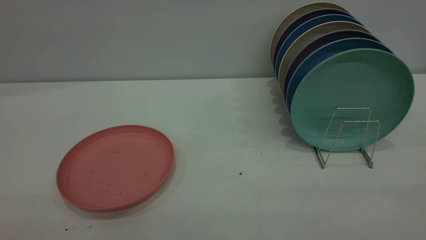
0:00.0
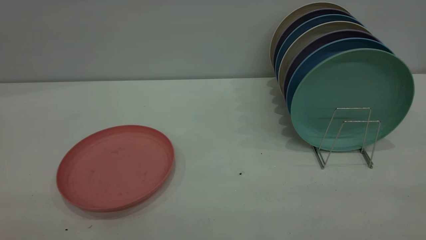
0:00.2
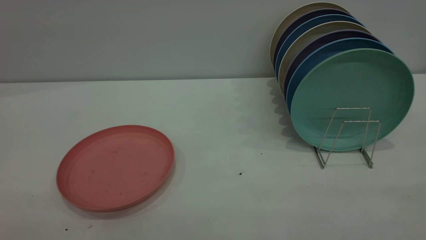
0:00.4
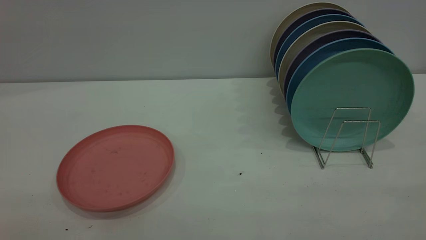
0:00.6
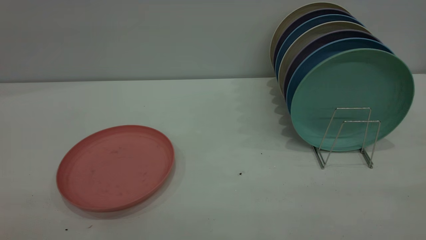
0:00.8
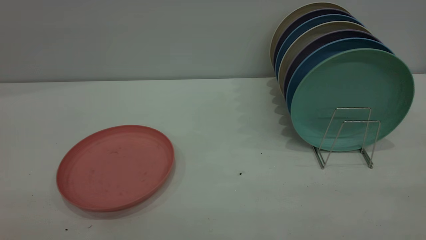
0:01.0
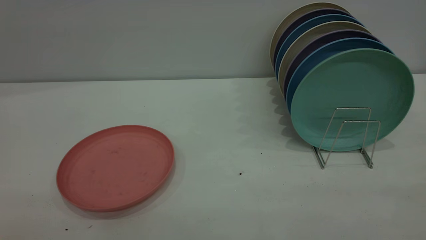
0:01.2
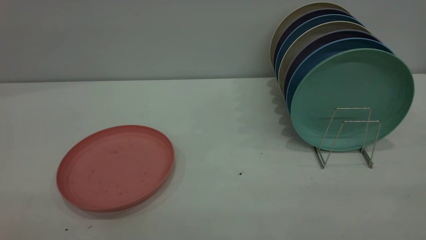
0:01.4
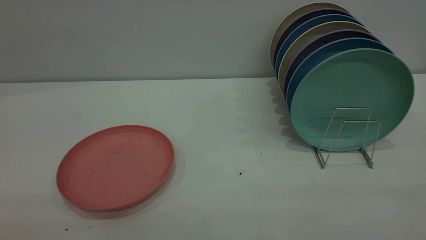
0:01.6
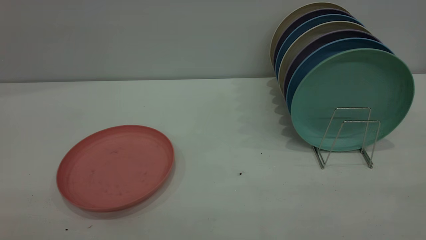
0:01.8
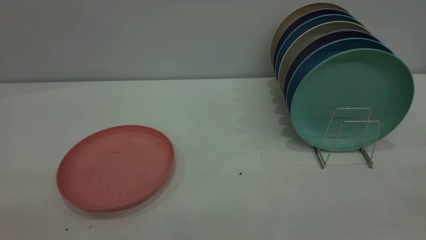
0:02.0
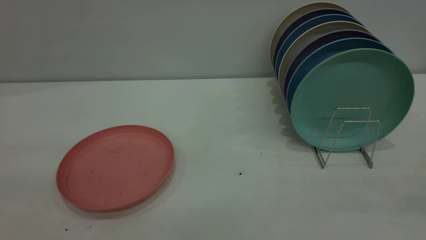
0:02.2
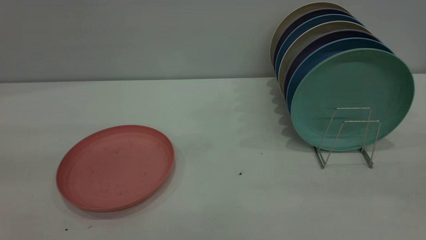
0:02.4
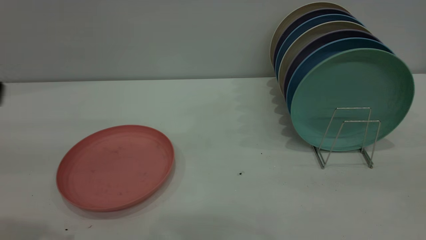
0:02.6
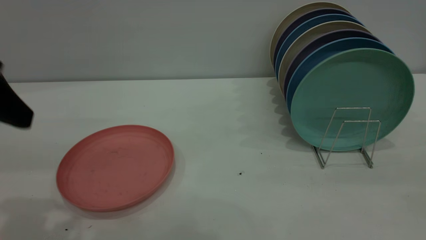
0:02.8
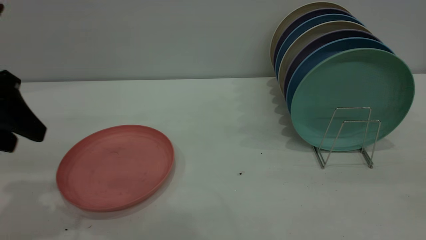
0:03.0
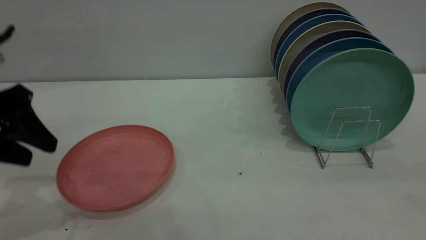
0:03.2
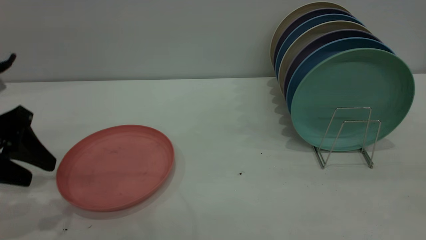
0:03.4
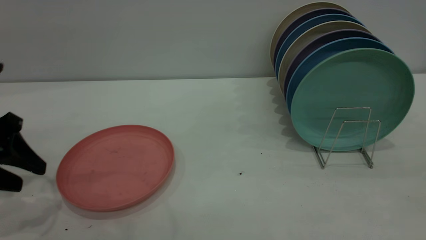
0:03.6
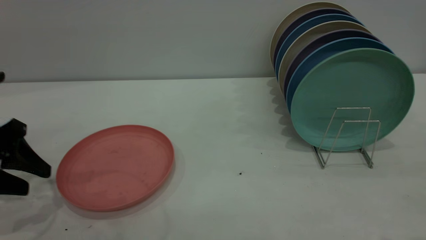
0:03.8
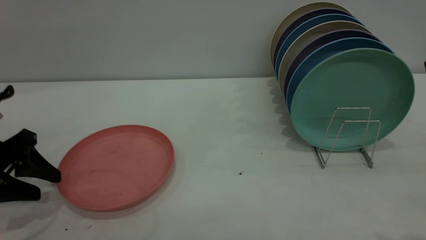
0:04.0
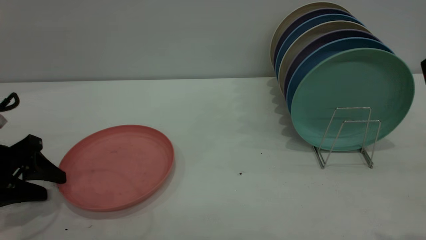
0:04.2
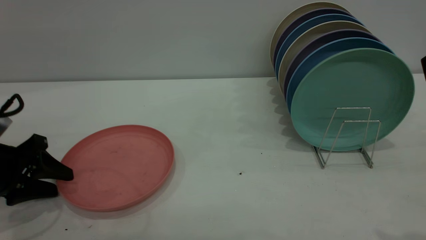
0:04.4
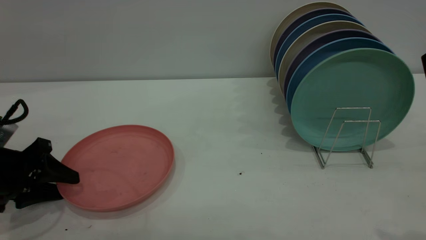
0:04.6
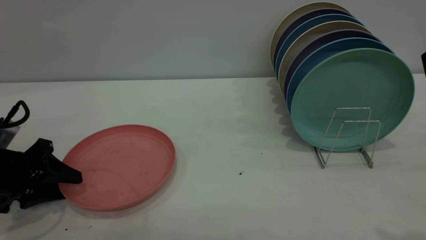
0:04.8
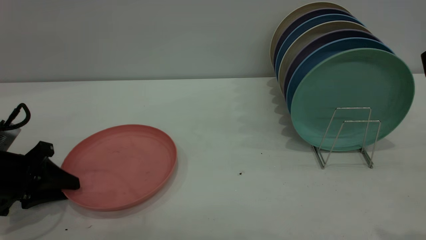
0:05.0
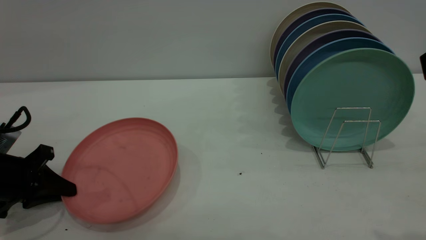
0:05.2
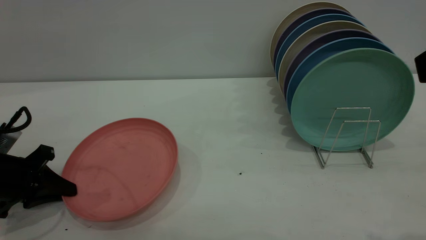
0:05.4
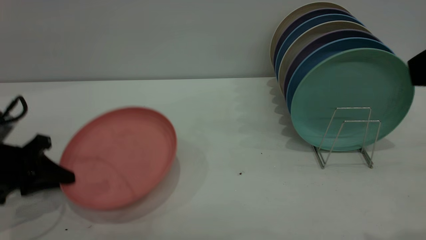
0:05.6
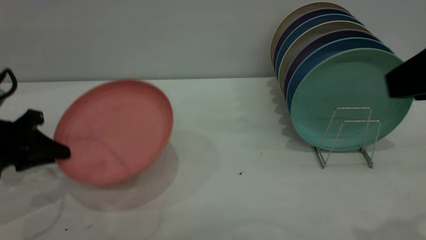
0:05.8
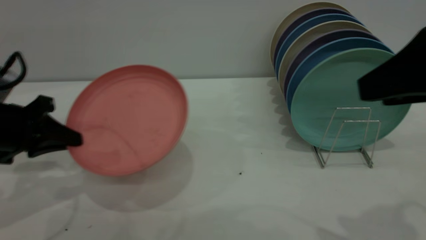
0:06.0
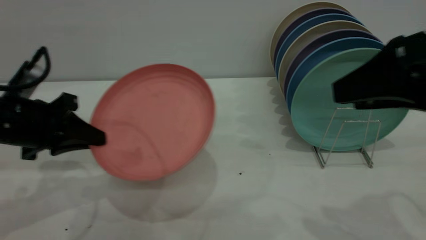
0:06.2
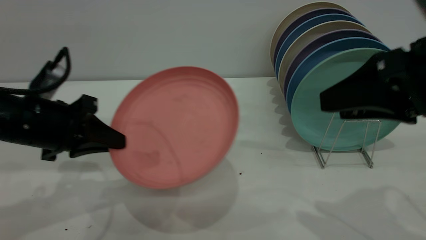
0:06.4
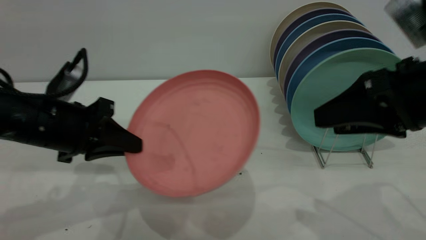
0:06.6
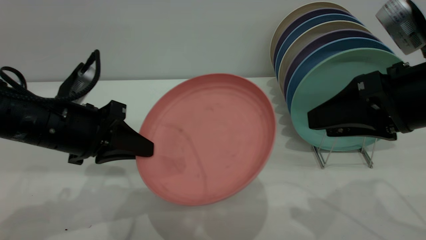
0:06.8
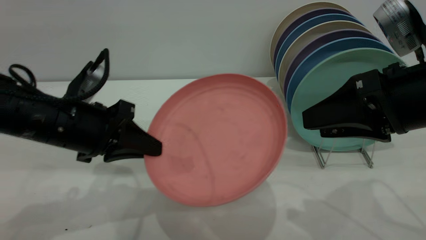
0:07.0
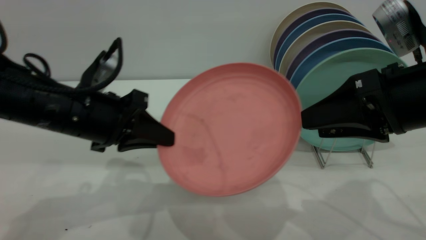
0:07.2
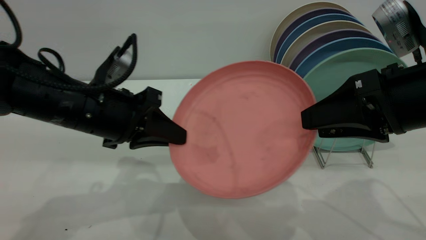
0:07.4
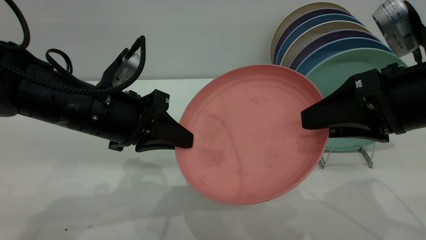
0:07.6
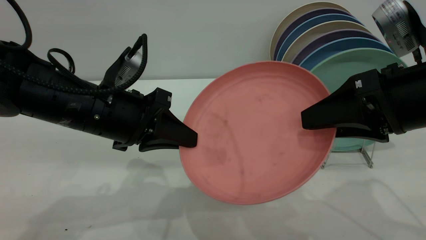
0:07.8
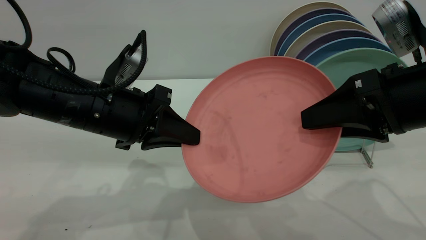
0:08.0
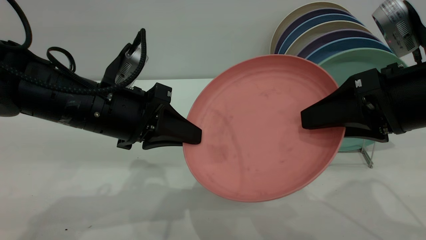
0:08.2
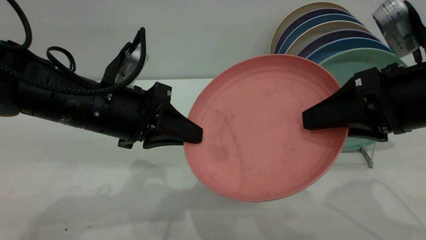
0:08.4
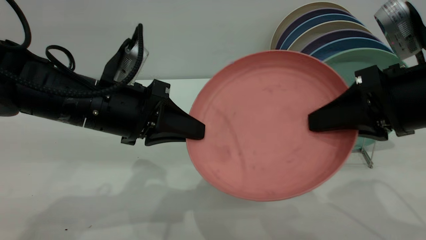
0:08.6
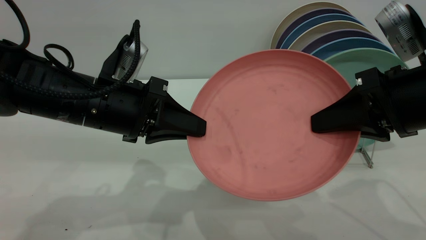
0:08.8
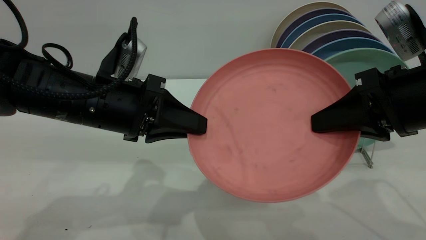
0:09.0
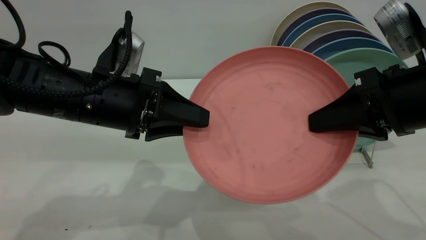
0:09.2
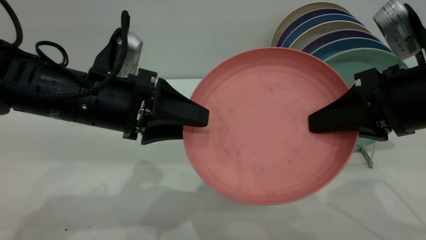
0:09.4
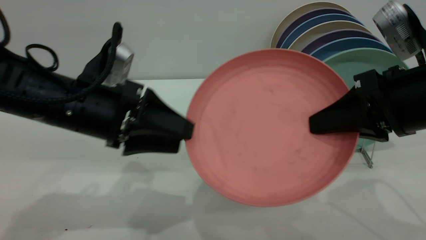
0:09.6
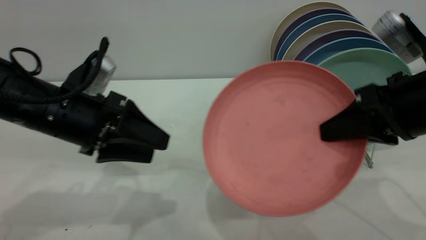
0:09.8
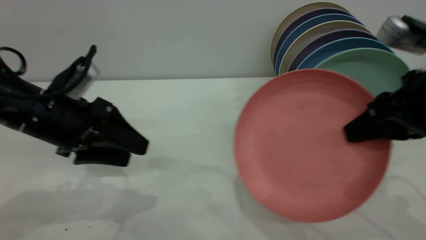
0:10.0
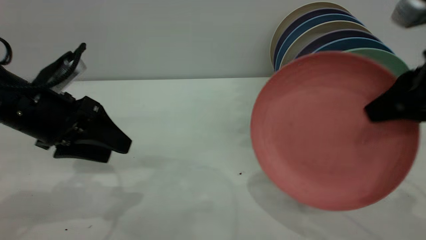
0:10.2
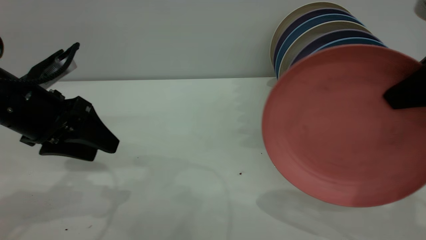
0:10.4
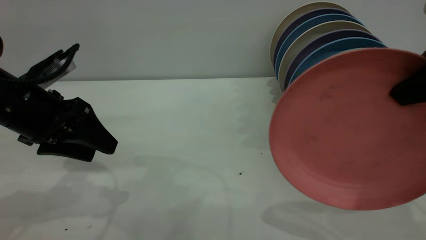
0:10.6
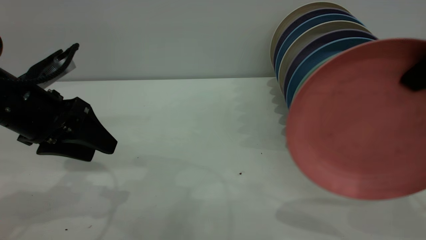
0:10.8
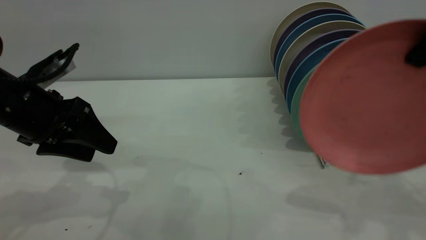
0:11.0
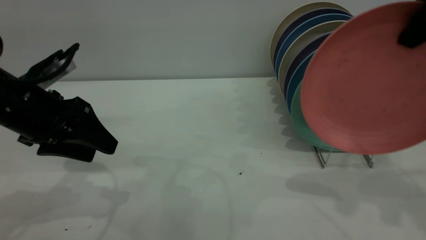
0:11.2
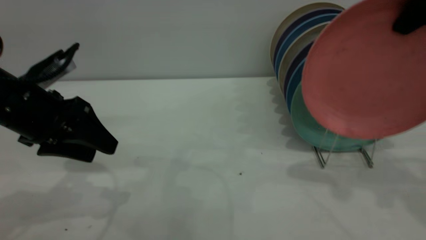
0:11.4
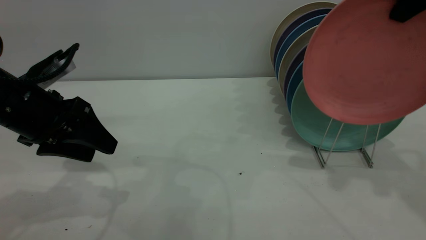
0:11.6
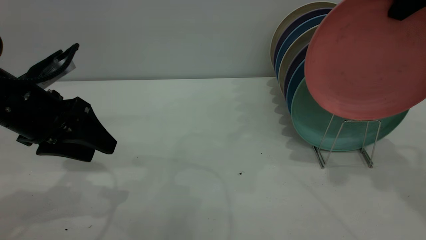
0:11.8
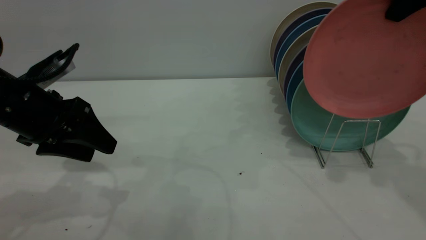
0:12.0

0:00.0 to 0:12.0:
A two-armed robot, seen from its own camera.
Task of the whole recording: the left gripper grasp the pink plate, the left gripper pass the pink plate to the right gripper, and the right gripper place the pink plate on the plate rack.
Step, 0:00.0 to 0:05.4: Pick up the plate with the left gripper.
Step, 0:05.6 to 0:09.6: Pass the plate from the left gripper to the right gripper.
0:00.0 to 0:01.6: Both grippers stay put.
0:01.6 to 0:03.0: The left gripper heads forward and downward, covering approximately 30 cm.
0:03.0 to 0:04.4: The left gripper travels downward by about 15 cm.
0:04.4 to 0:06.0: The right gripper moves approximately 5 cm. Meanwhile the left gripper moves about 5 cm, and closes its fingers.
0:06.0 to 0:07.6: The right gripper travels downward by some 10 cm. Meanwhile the left gripper goes some 15 cm to the right.
0:07.6 to 0:09.0: The right gripper closes its fingers.
0:09.0 to 0:10.4: The left gripper is displaced to the left by some 10 cm, and opens up, while the right gripper shifts some 5 cm upward.
0:10.4 to 0:12.0: The right gripper moves forward and upward, some 15 cm.

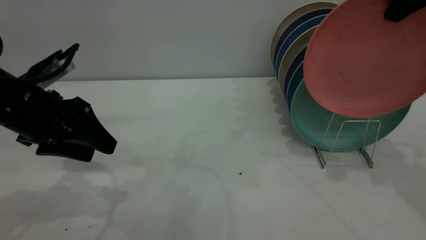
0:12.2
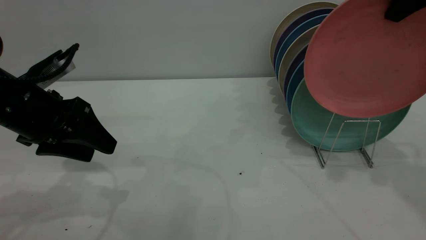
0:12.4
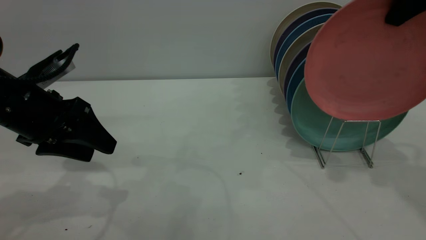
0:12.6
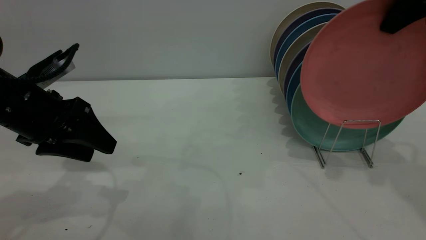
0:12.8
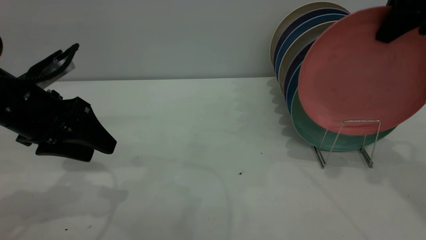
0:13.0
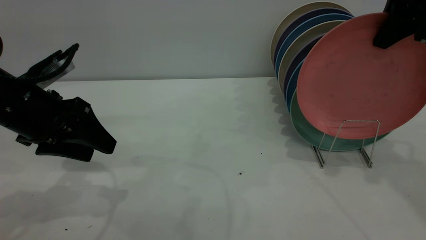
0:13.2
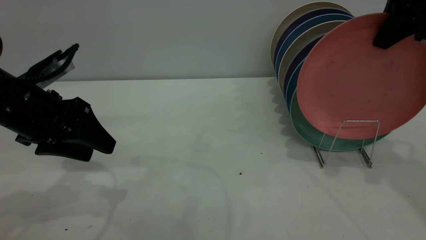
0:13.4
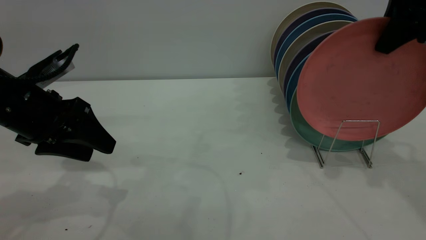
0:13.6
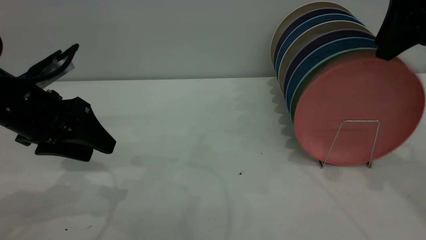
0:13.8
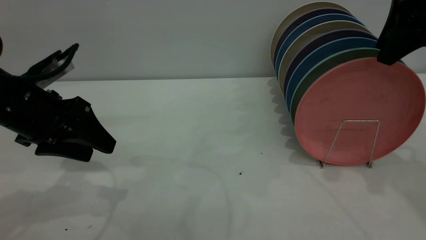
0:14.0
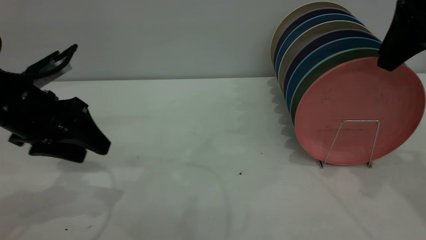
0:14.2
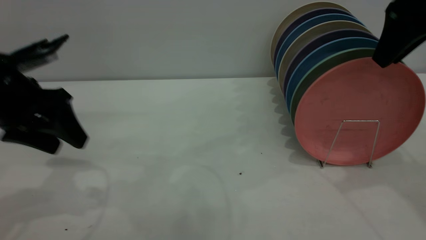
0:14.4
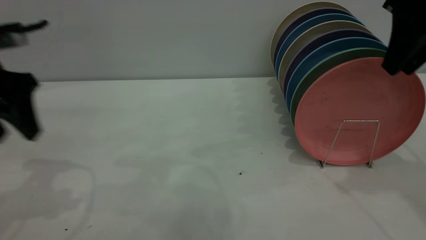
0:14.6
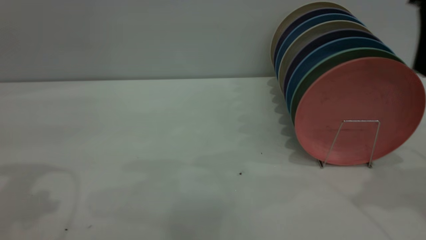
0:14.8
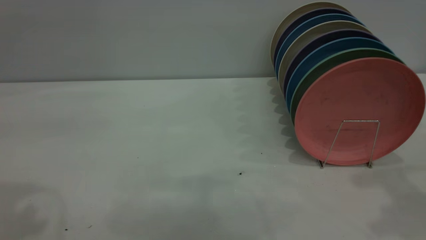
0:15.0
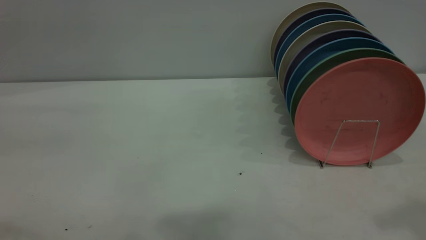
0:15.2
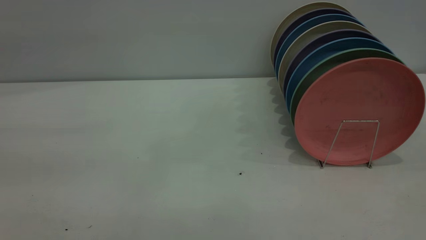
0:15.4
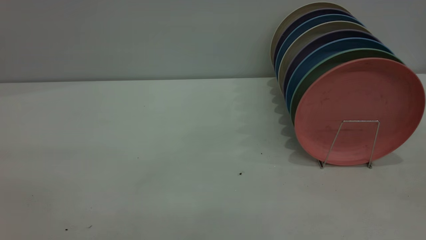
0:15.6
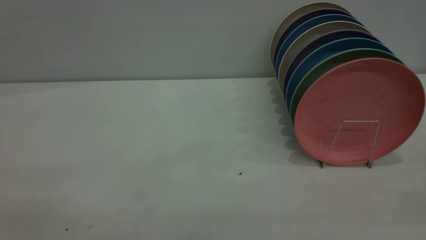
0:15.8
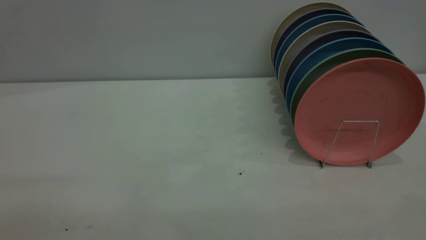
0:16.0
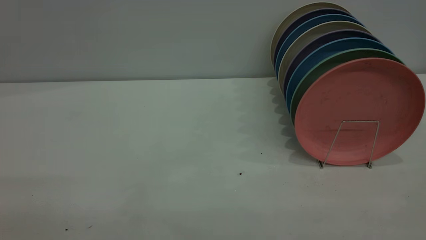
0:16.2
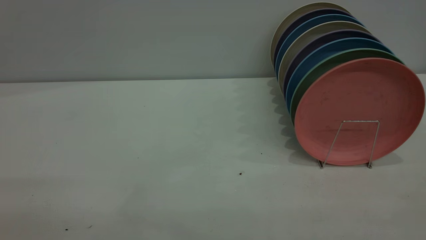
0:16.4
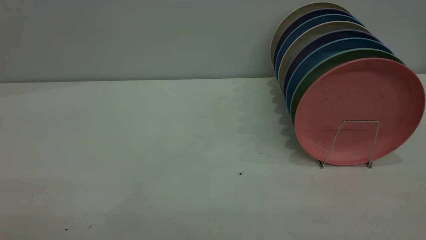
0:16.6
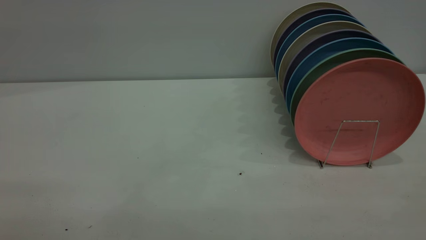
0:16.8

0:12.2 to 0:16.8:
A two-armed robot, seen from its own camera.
Task of the whole recording: the left gripper grasp the pink plate, the left gripper pass the pink plate to the right gripper, and the right gripper place the pink plate on the plate rack.
Step, 0:12.2 to 0:14.6: Place the plate on the shelf.
0:12.2 to 0:13.8: The right gripper opens up.
0:13.8 to 0:15.2: The left gripper shifts roughly 25 cm upward and backward. The right gripper is displaced backward and upward by roughly 20 cm.
